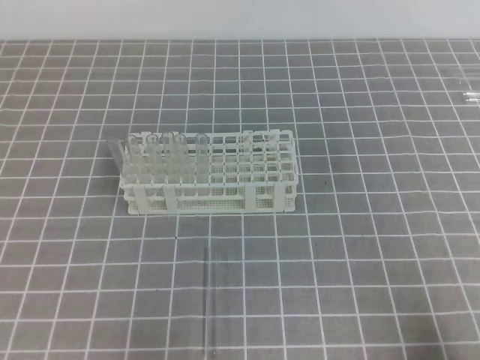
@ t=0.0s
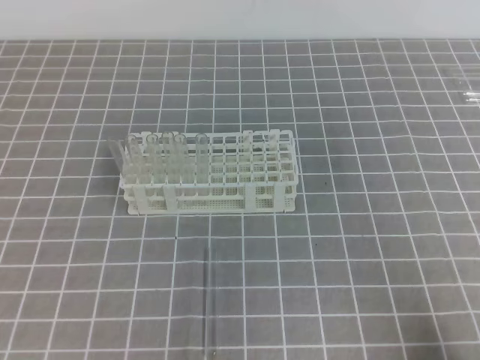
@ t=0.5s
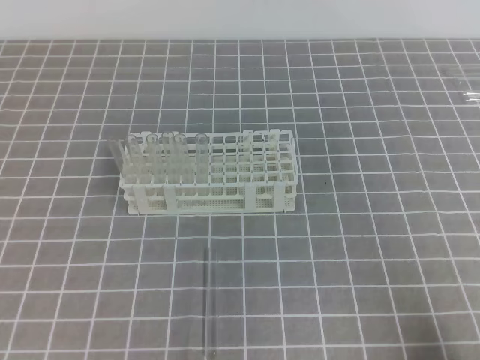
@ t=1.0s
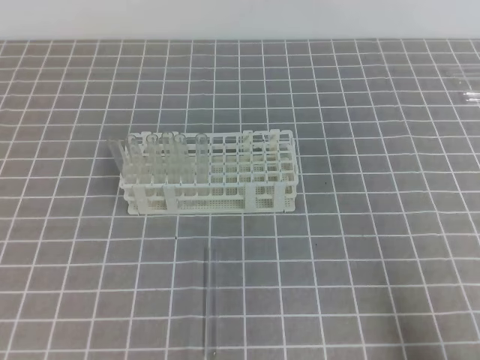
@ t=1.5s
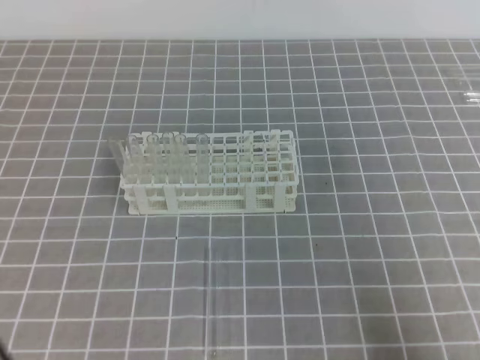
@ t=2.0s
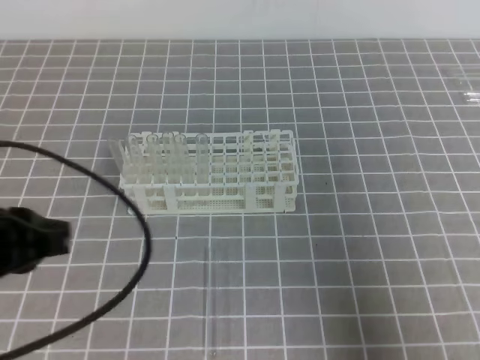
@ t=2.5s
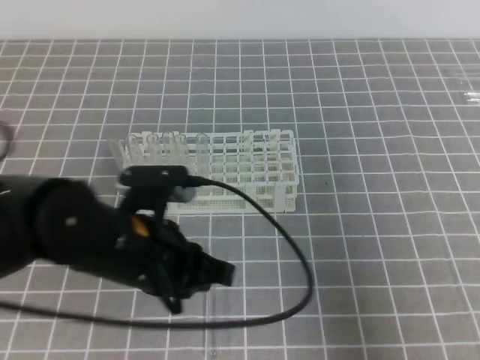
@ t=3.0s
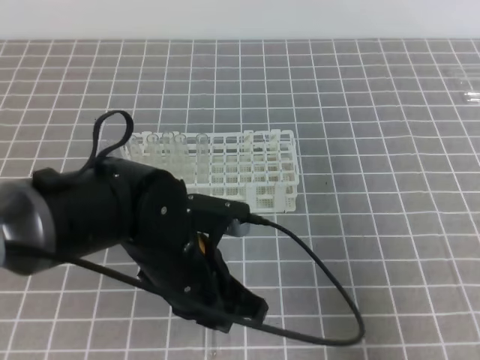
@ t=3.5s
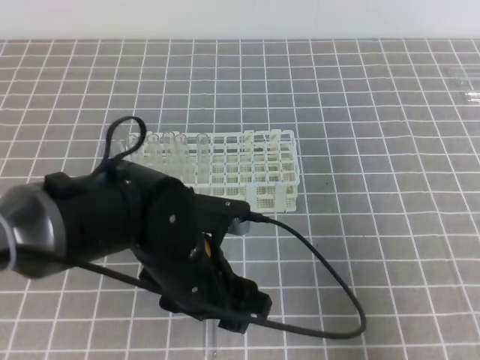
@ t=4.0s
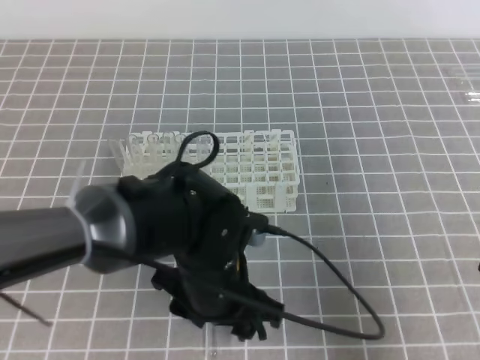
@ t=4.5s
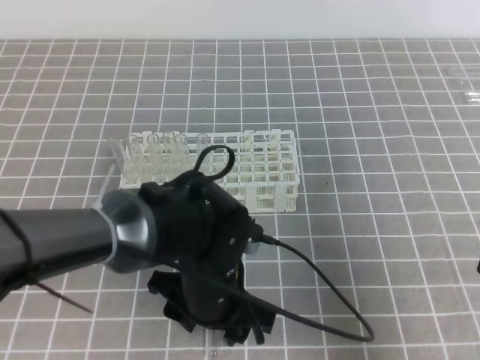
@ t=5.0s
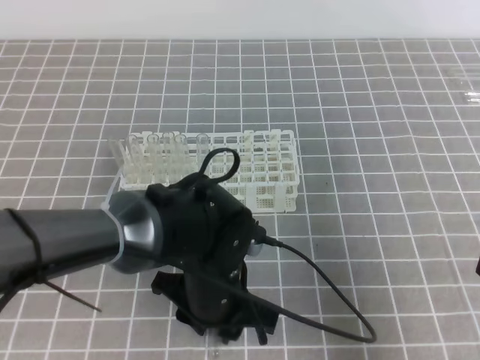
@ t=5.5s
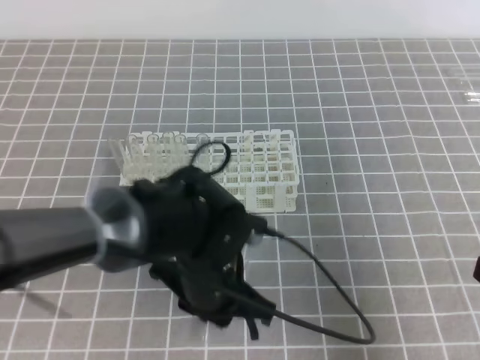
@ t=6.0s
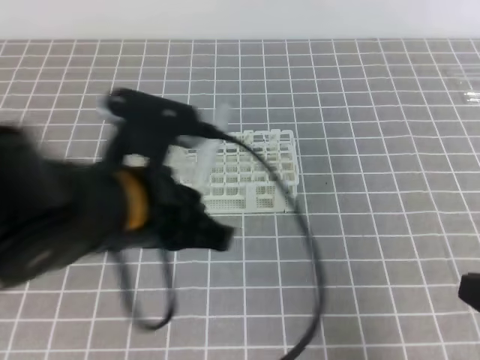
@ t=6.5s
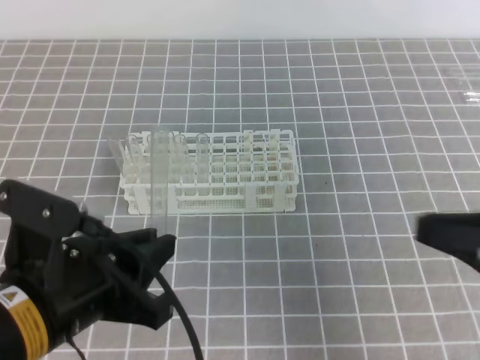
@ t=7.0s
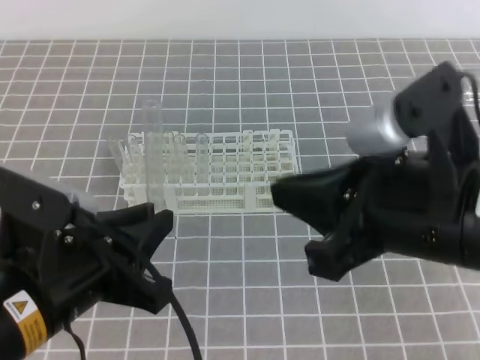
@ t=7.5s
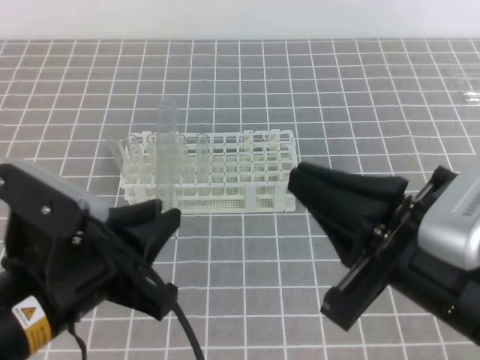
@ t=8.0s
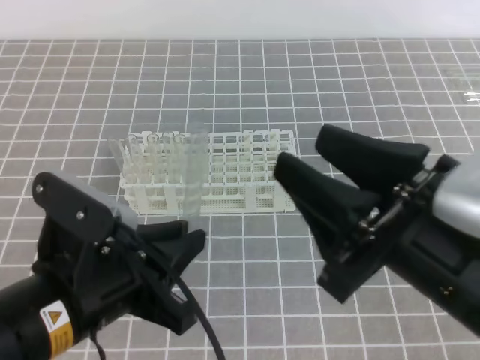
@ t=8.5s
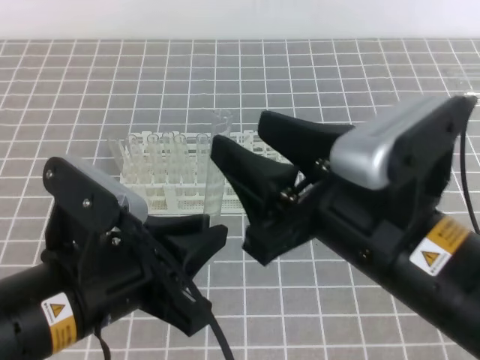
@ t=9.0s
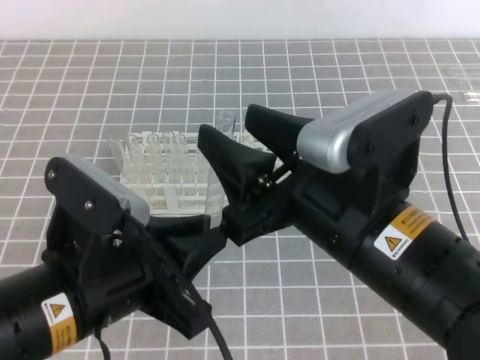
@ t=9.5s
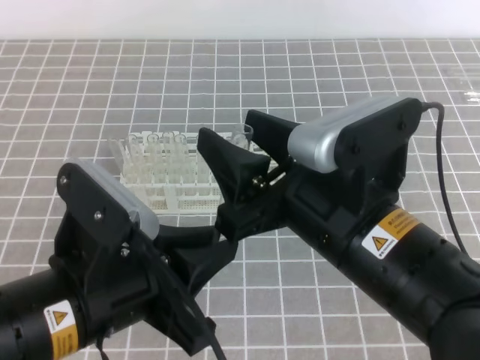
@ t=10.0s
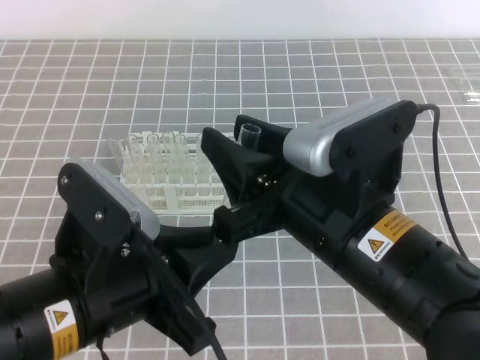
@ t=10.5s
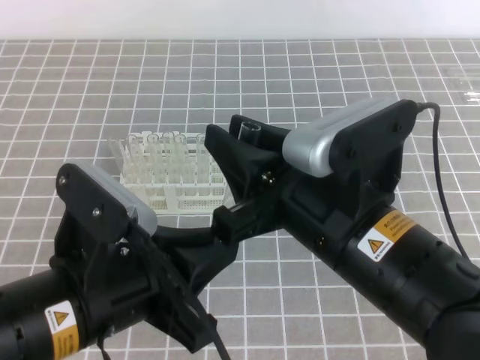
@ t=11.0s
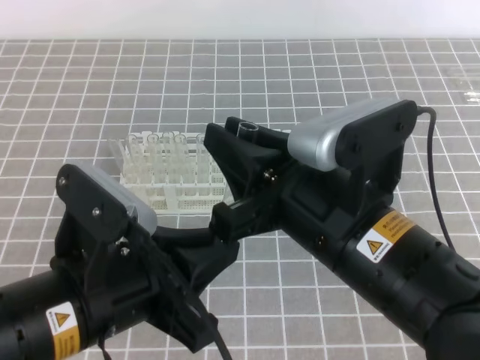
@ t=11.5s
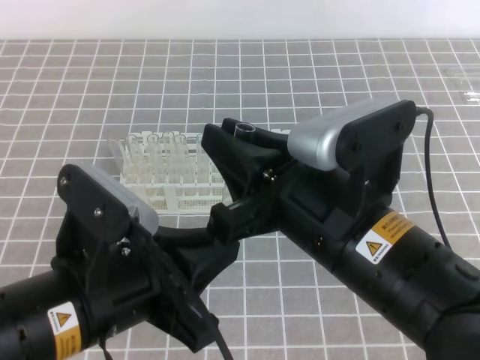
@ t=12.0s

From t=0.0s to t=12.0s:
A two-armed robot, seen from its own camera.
From t=2.0s to t=4.0s: The right gripper changes place by about 5 cm; the left gripper shifts approximately 25 cm to the right and forward, and opens.
From t=4.0s to t=6.0s: The left gripper closes its fingers.
From t=6.0s to t=8.0s: The left gripper travels to the left, upward and backward by some 15 cm. Meanwhile the right gripper travels to the left and upward by approximately 15 cm.
From t=8.0s to t=10.0s: The right gripper shifts roughly 5 cm to the left, and opens.
From t=10.0s to t=12.0s: The right gripper closes its fingers.

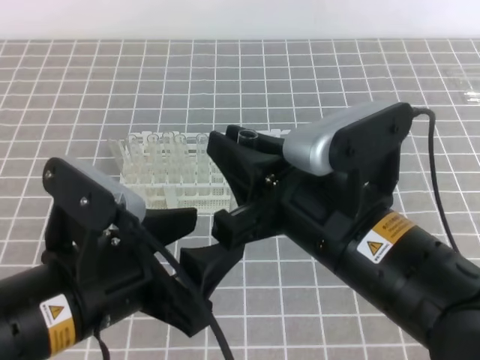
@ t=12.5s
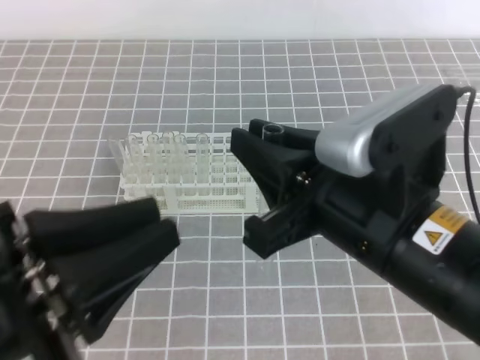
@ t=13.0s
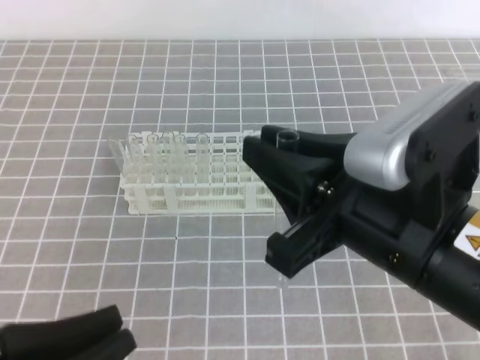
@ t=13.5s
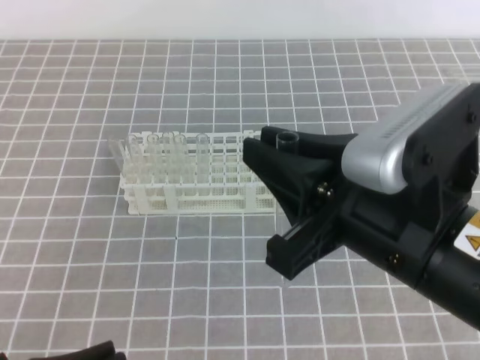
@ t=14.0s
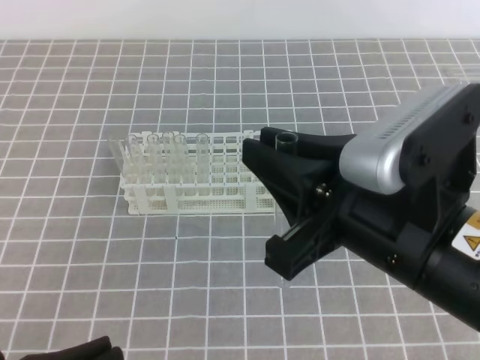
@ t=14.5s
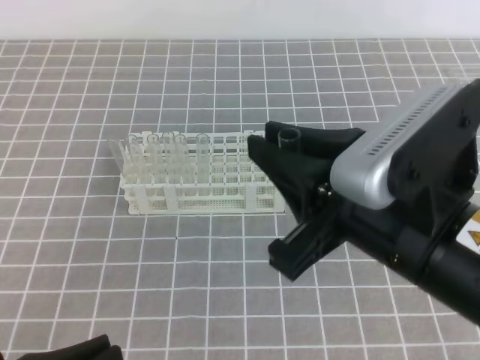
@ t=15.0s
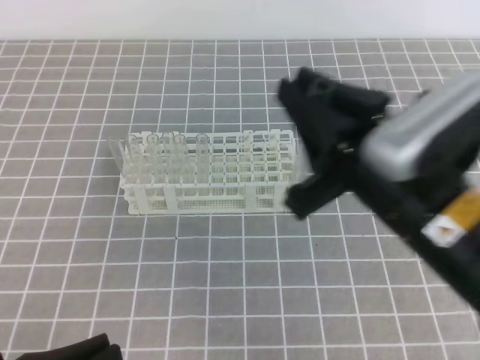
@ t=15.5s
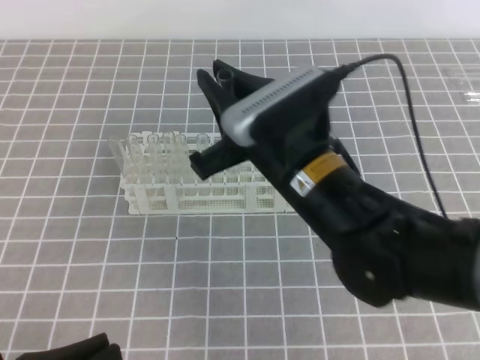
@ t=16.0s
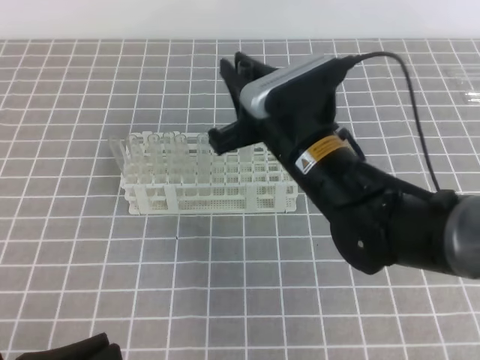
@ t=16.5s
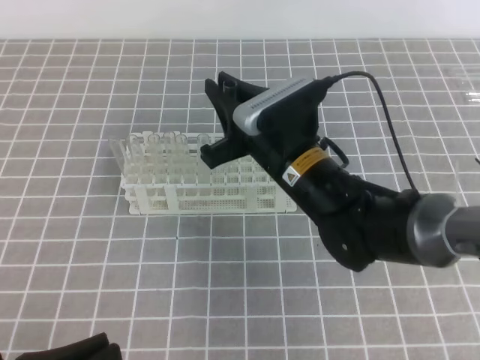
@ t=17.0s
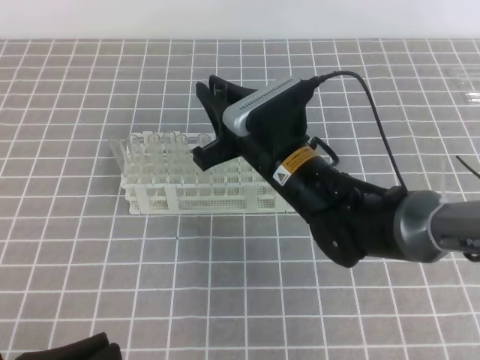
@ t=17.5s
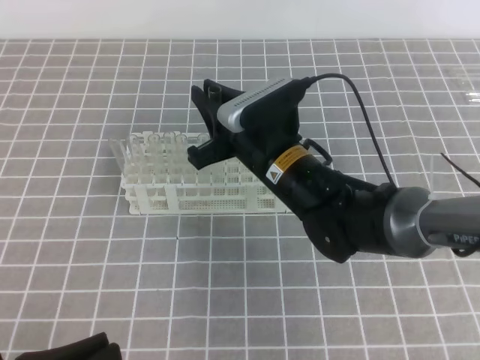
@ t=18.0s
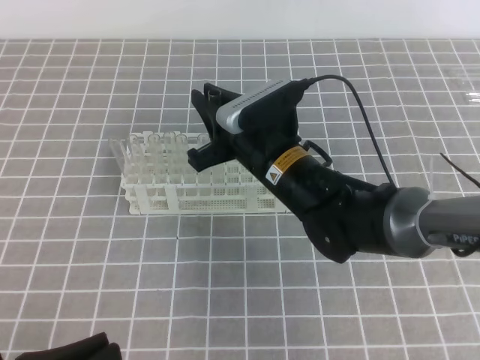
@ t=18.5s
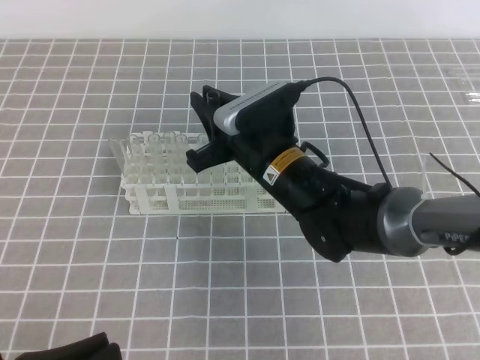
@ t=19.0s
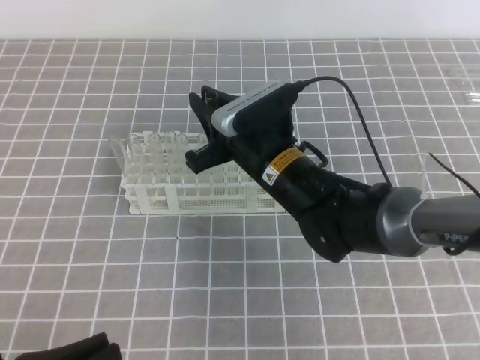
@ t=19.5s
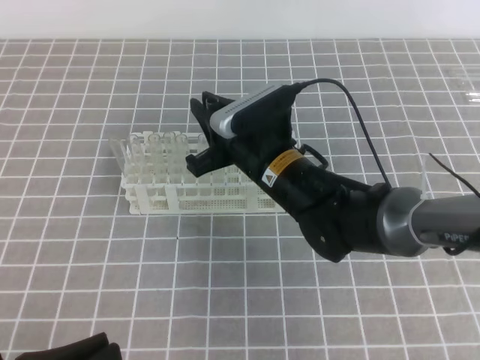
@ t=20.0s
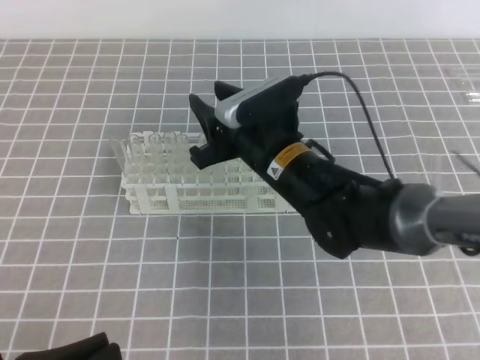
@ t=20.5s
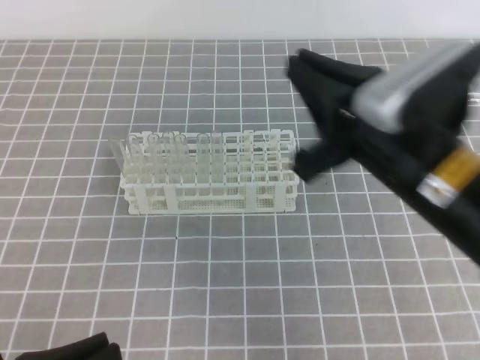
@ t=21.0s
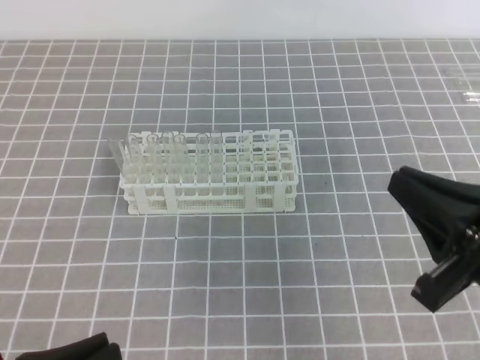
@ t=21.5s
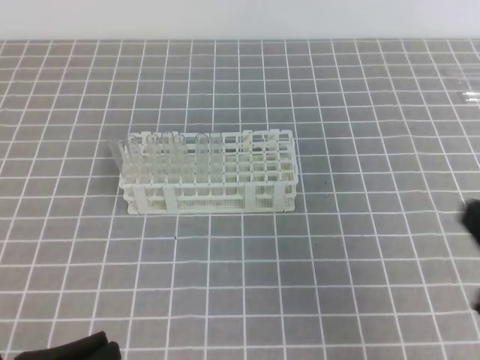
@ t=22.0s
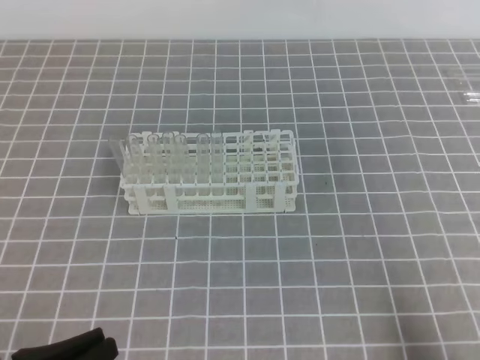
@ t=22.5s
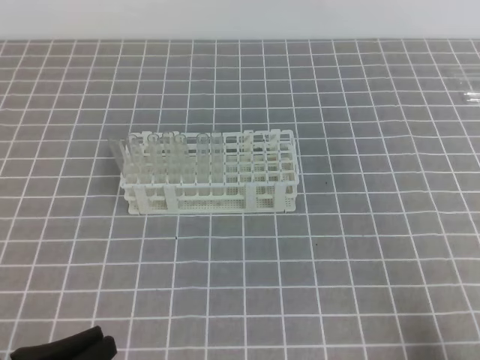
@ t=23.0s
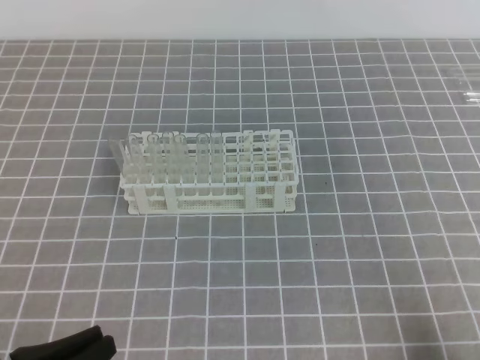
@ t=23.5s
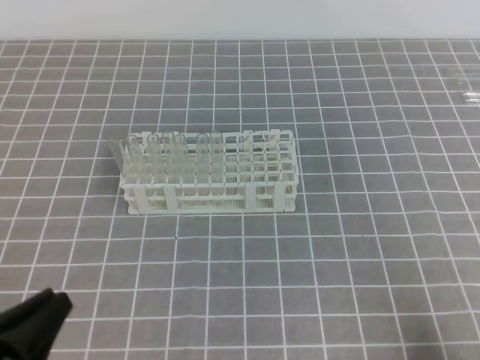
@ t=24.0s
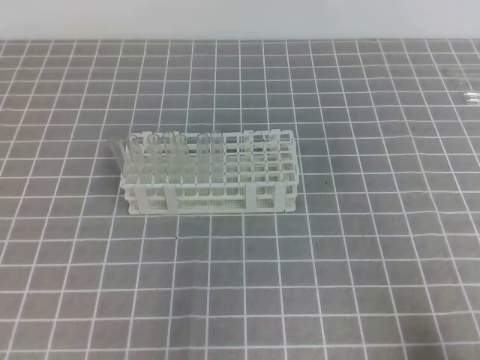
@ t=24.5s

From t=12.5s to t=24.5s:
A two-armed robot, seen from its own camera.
From t=12.5s to t=14.5s: The left gripper heads downward, to the left and backward, covering about 15 cm, and closes up.
From t=14.5s to t=16.5s: The right gripper moves forward and downward, about 15 cm.
From t=16.5s to t=18.5s: The right gripper changes place by some 5 cm.
From t=18.5s to t=20.5s: The right gripper opens.
From t=20.5s to t=22.5s: The right gripper moves to the right and backward, approximately 40 cm, and closes its fingers.
From t=22.5s to t=24.5s: The left gripper changes place by approximately 5 cm.

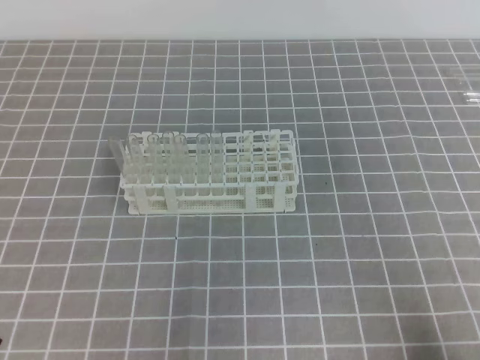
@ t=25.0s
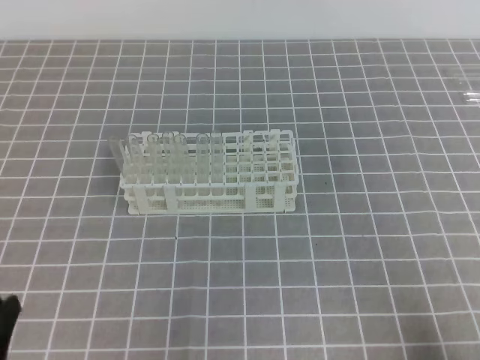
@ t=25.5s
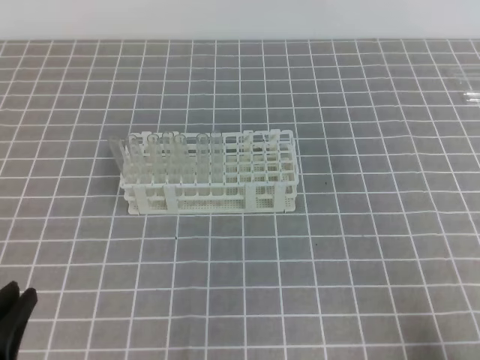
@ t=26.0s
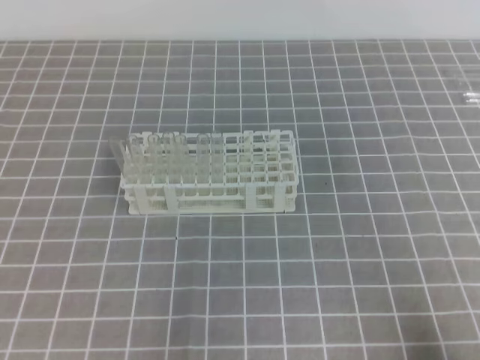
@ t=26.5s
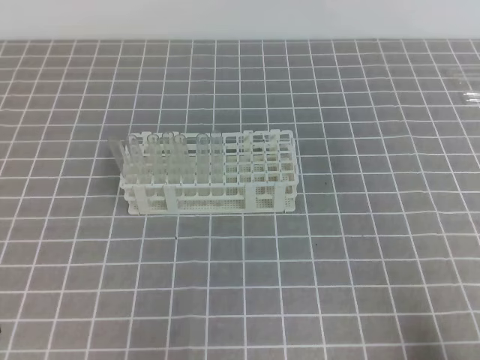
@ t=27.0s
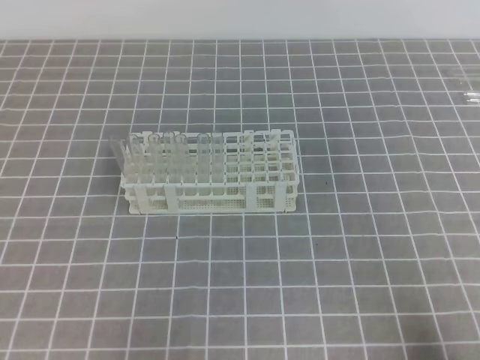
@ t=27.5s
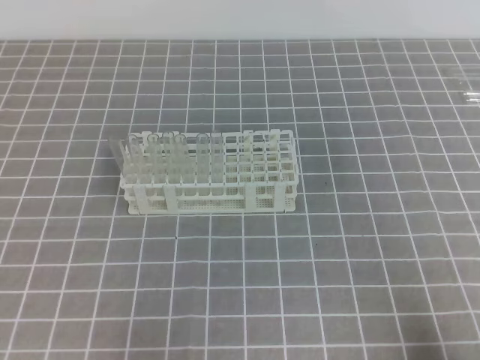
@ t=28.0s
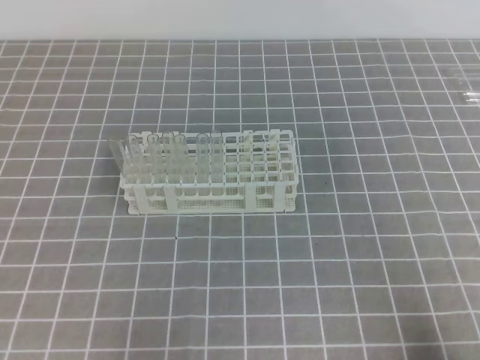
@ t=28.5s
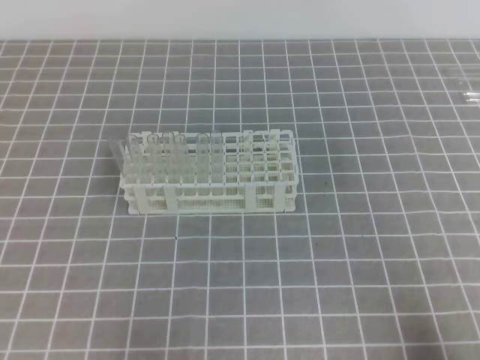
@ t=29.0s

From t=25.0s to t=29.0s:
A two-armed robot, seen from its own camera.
From t=27.0s to t=29.0s: Both grippers stay about where they are.
